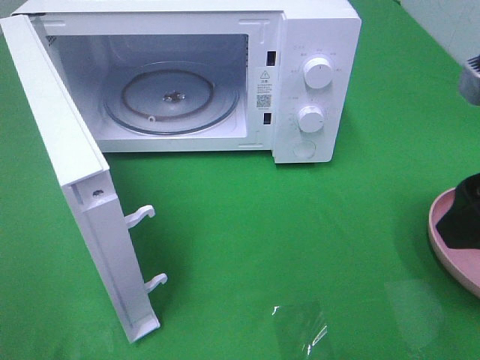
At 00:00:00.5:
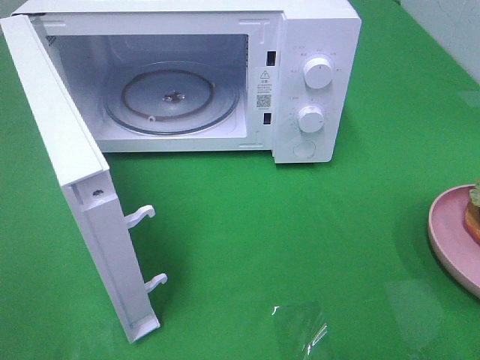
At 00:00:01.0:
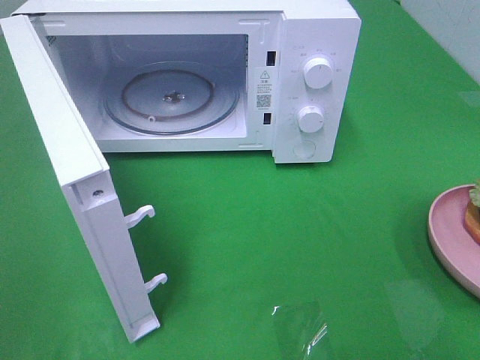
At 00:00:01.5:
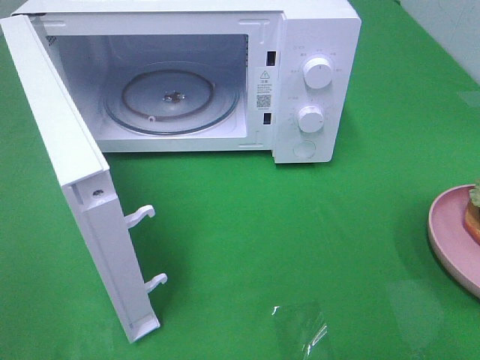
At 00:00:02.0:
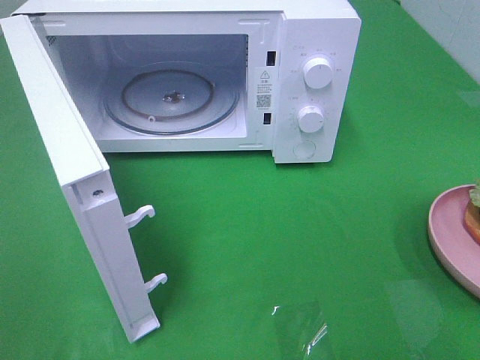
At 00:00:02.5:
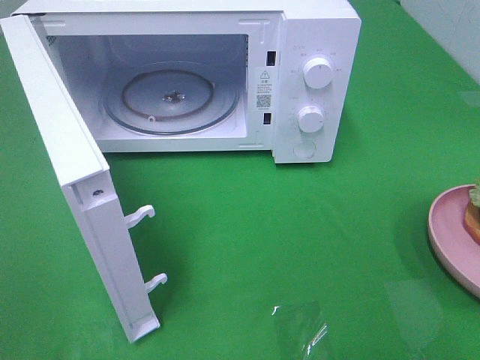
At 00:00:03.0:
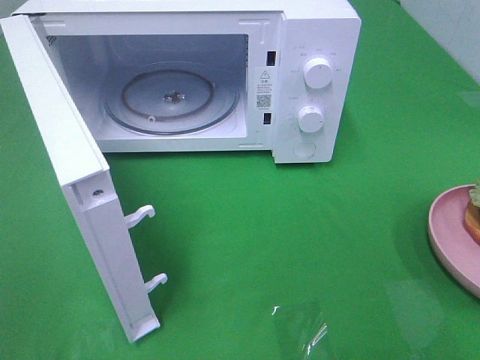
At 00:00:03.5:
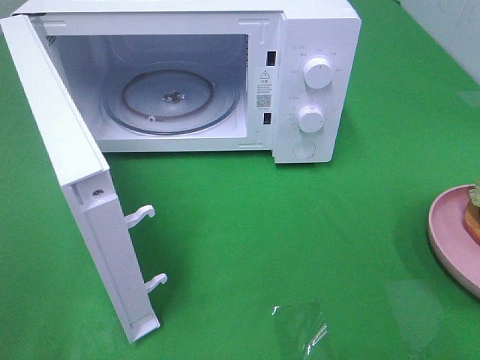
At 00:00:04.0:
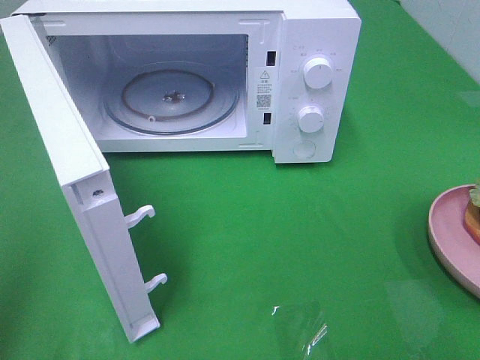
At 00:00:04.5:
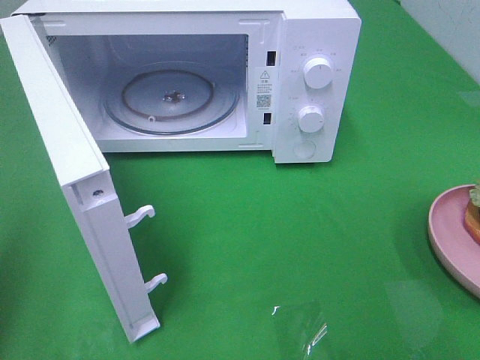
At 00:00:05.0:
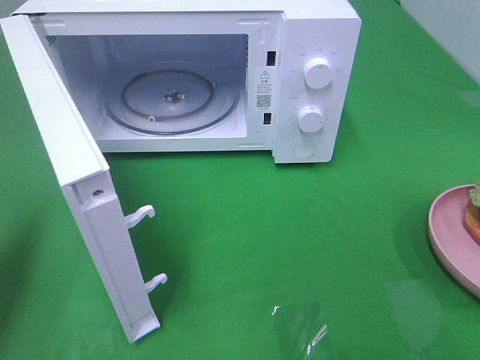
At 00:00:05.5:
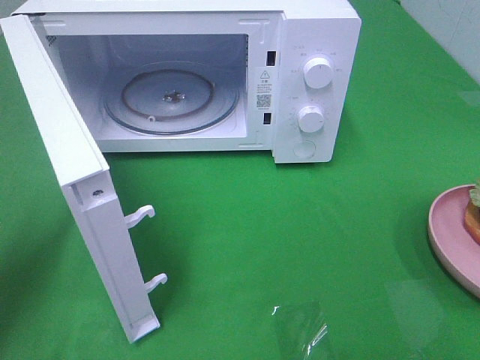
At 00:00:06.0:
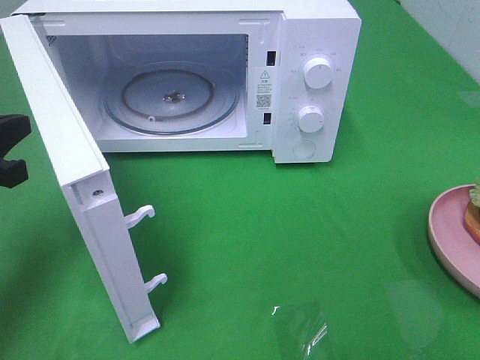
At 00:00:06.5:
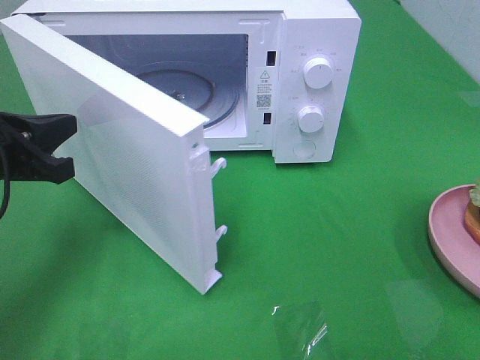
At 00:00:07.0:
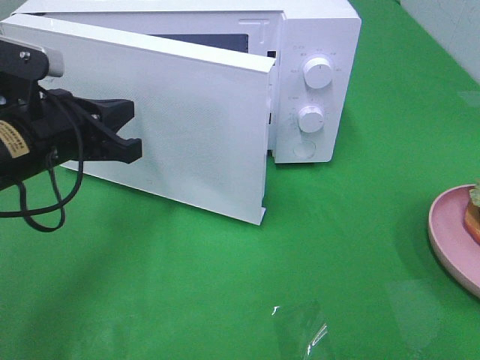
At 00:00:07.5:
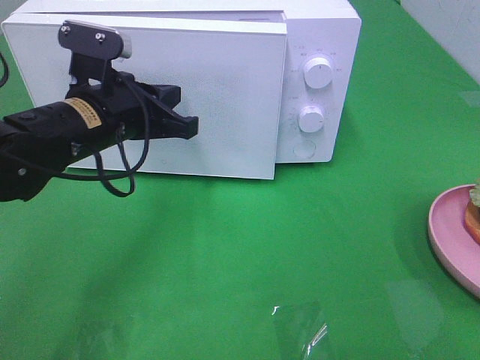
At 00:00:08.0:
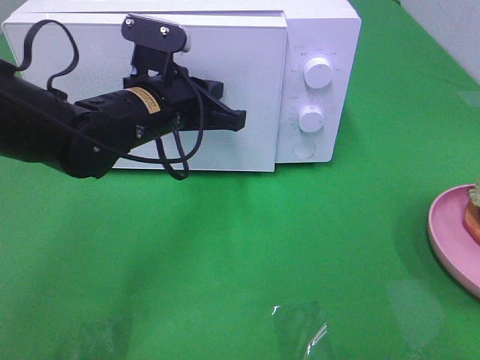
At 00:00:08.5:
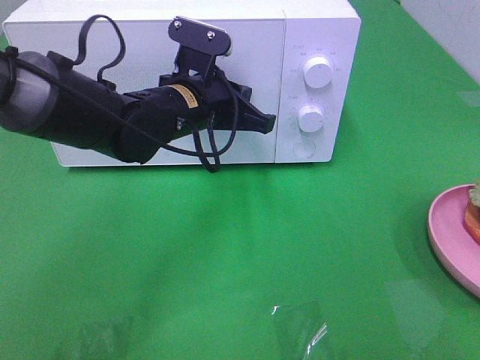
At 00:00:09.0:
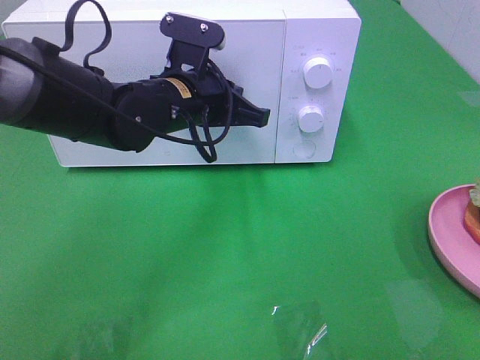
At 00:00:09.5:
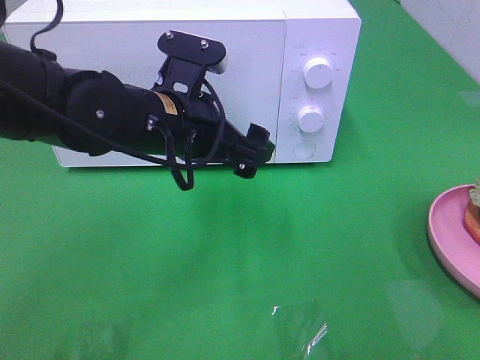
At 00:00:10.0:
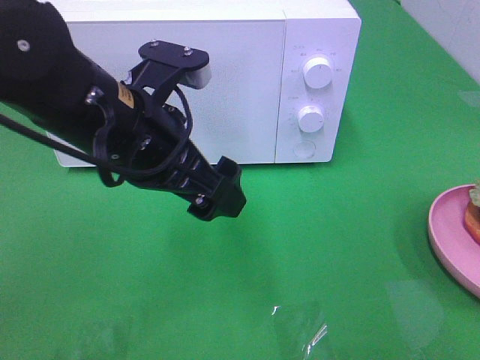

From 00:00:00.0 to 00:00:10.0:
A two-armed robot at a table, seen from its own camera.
Task of the whole recording: Heat the burger.
Step, from 00:00:00.0 to 00:00:09.0: Left hand: close the microwave door.
From 00:00:00.0 to 00:00:02.0: The right gripper heads backward and to the right, covering roughly 15 cm.
From 00:00:04.0 to 00:00:06.0: The left gripper goes roughly 20 cm forward and downward.
From 00:00:06.0 to 00:00:08.0: The left gripper travels to the right and forward by approximately 20 cm.
From 00:00:08.0 to 00:00:10.0: The left gripper moves backward and upward, some 10 cm, and opens up.

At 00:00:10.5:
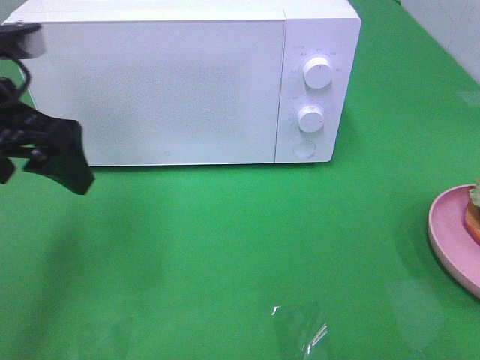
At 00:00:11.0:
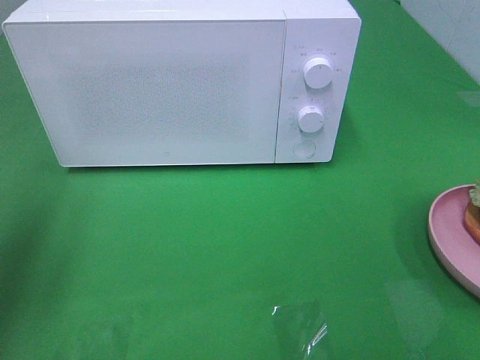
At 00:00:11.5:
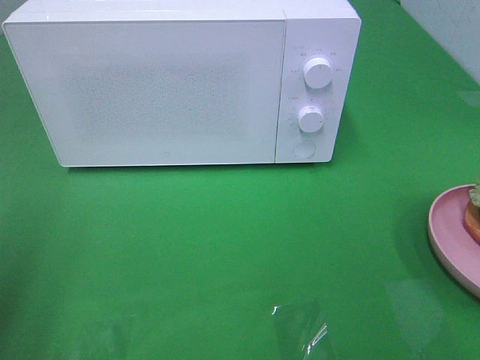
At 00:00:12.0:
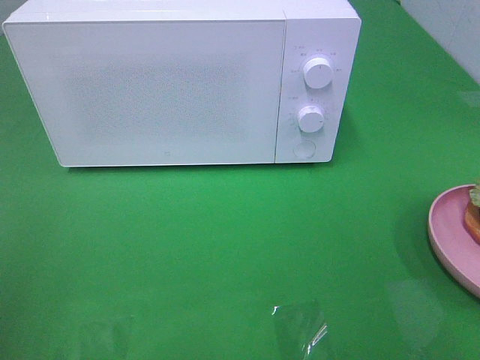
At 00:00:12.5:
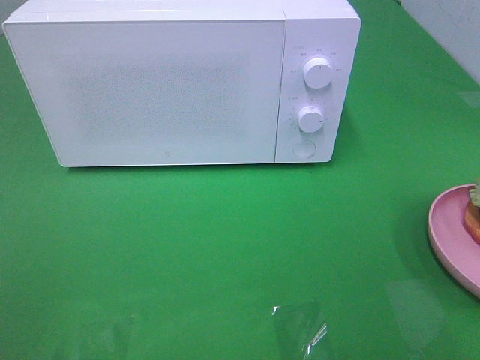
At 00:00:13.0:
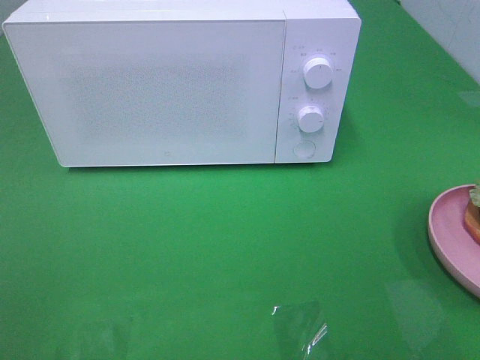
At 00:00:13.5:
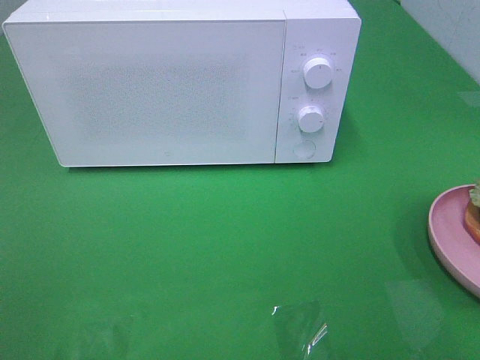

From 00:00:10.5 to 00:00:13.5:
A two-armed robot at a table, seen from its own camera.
Task of the whole recording: Heat the burger.
From 00:00:10.5 to 00:00:12.0: The left gripper shifts some 20 cm backward and to the left.
